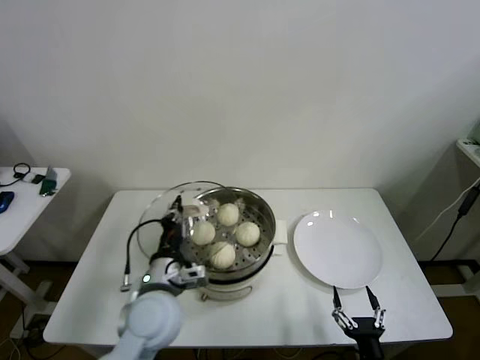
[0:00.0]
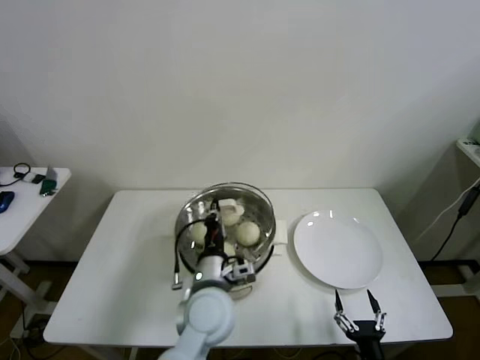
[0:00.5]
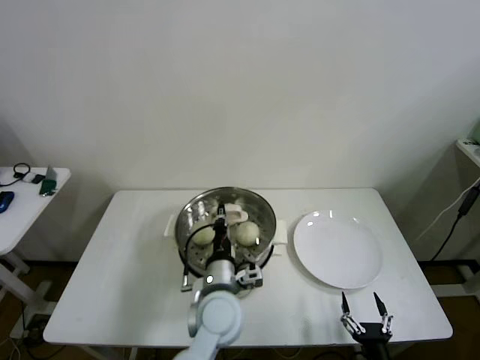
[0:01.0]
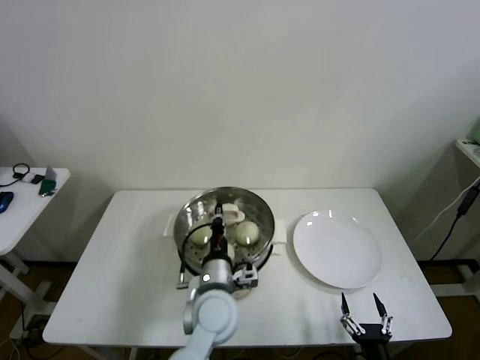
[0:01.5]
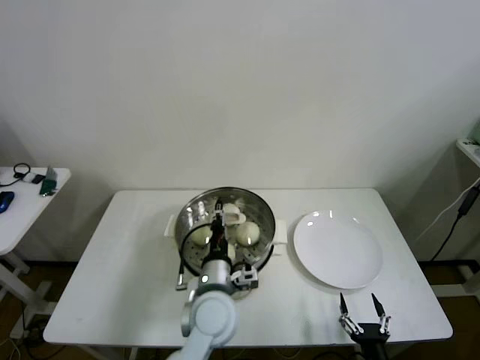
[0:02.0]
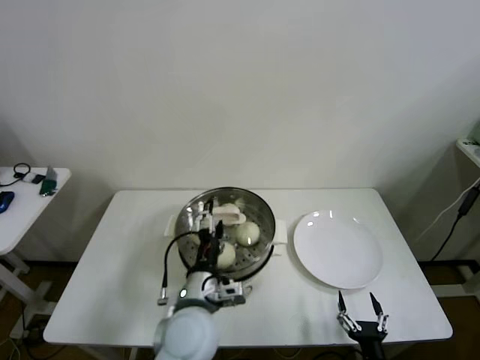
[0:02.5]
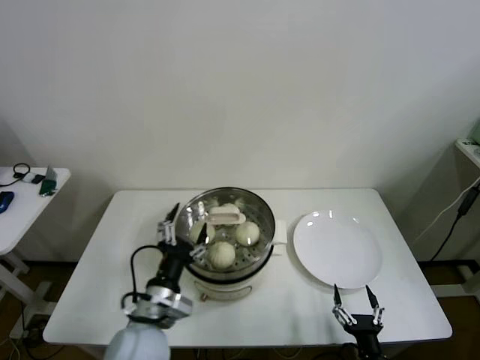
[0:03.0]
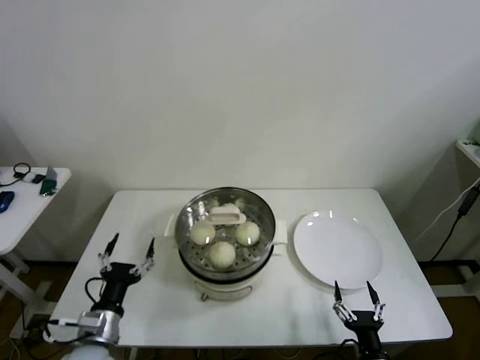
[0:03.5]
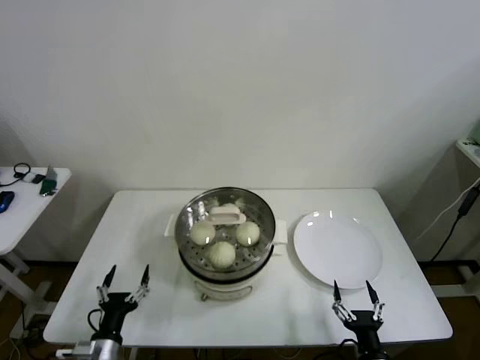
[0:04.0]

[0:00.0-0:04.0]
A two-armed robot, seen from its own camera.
0.0 to 2.0 s: The left gripper heads to the right, covering roughly 10 cm.
2.0 to 4.0 s: The left gripper heads to the left, downward and backward, covering about 30 cm, and opens up.

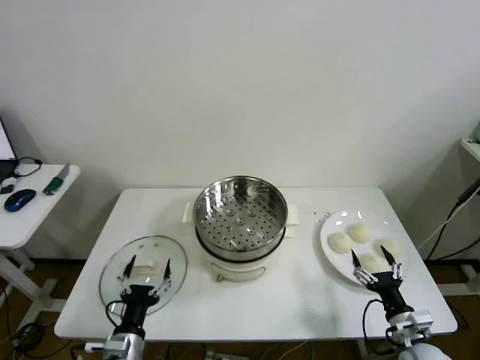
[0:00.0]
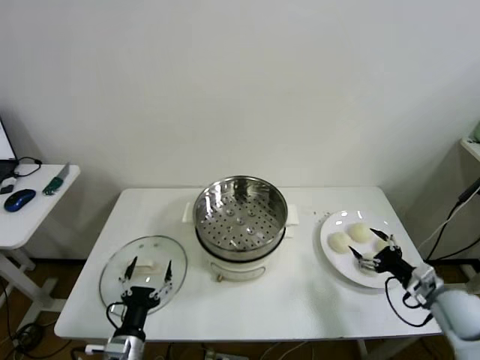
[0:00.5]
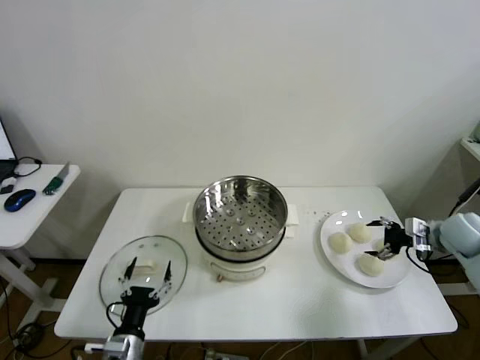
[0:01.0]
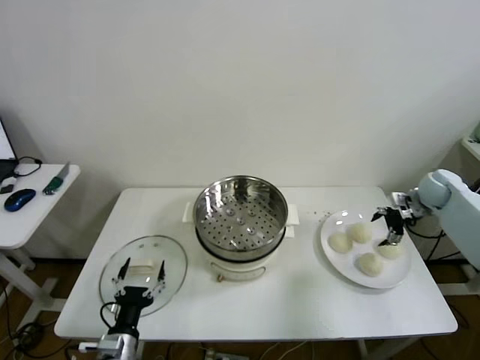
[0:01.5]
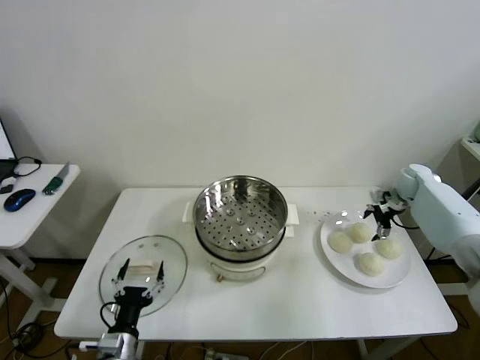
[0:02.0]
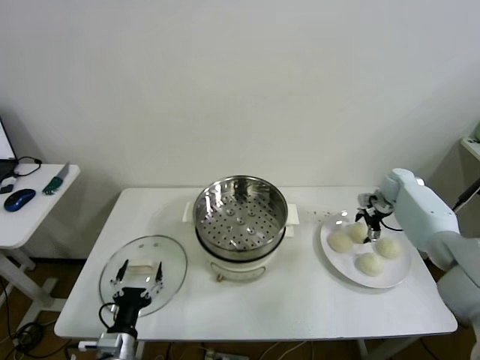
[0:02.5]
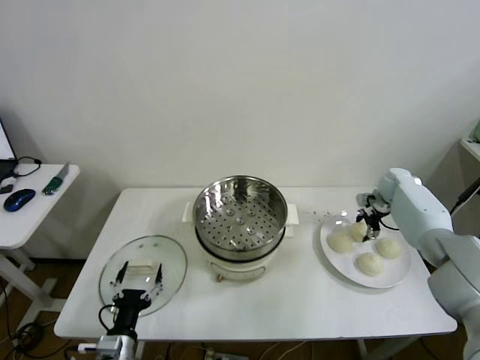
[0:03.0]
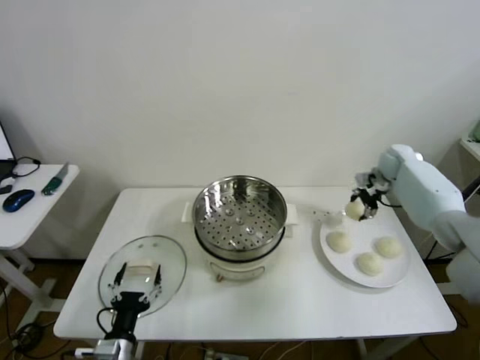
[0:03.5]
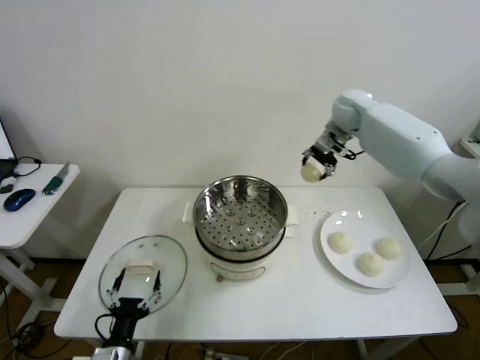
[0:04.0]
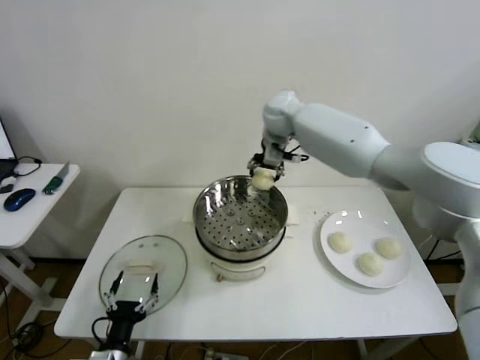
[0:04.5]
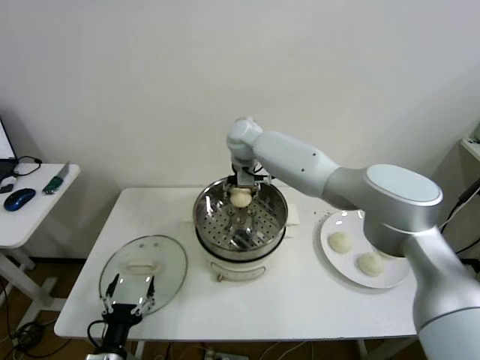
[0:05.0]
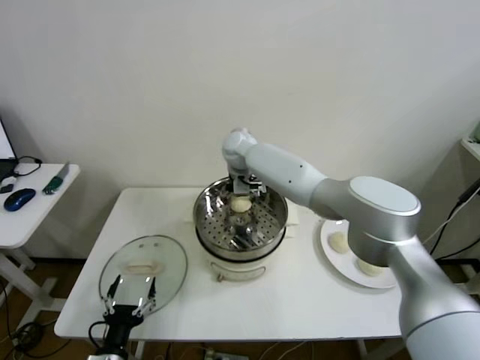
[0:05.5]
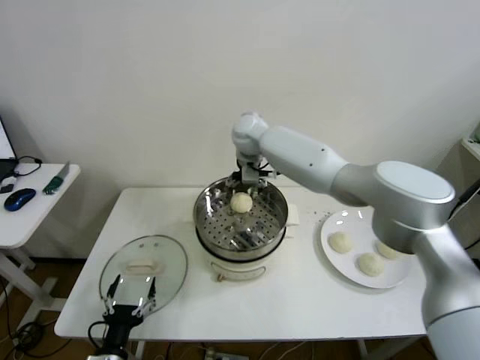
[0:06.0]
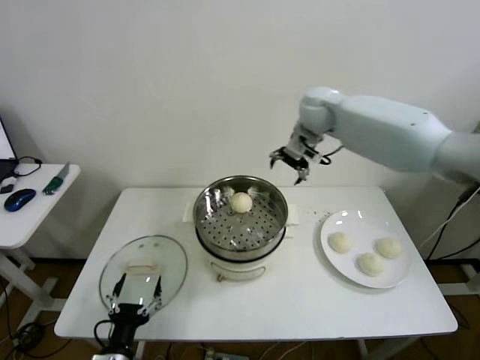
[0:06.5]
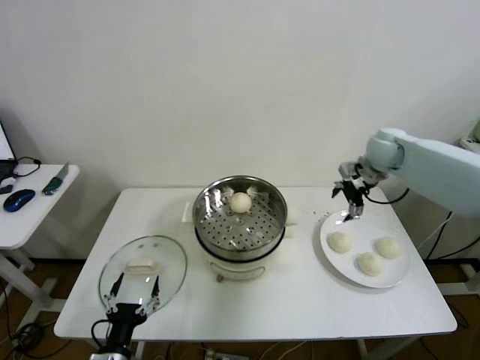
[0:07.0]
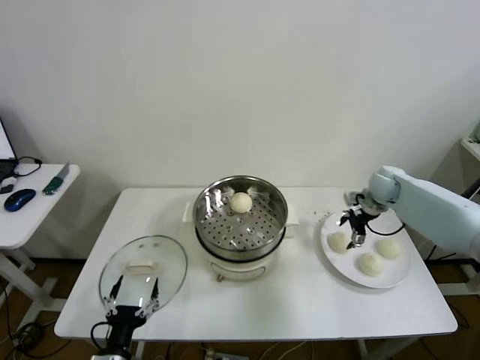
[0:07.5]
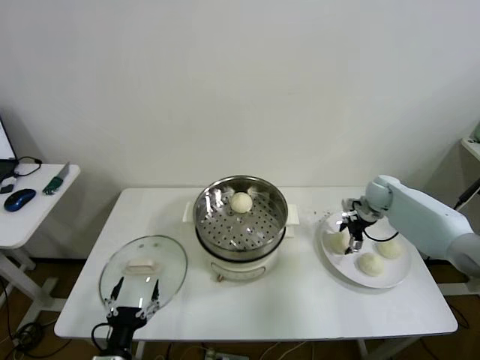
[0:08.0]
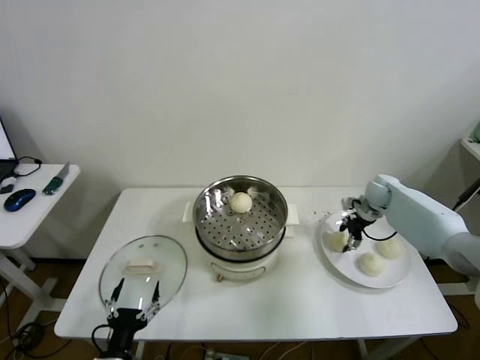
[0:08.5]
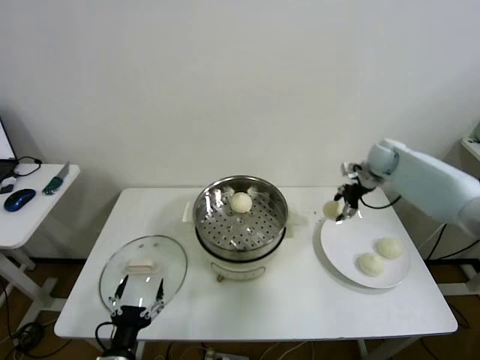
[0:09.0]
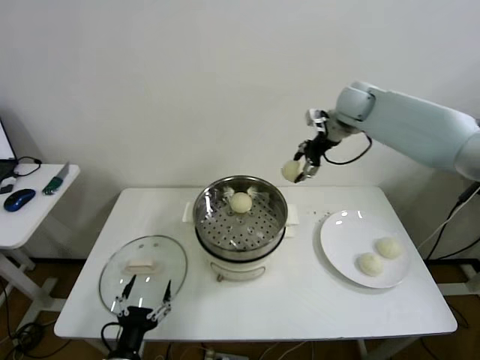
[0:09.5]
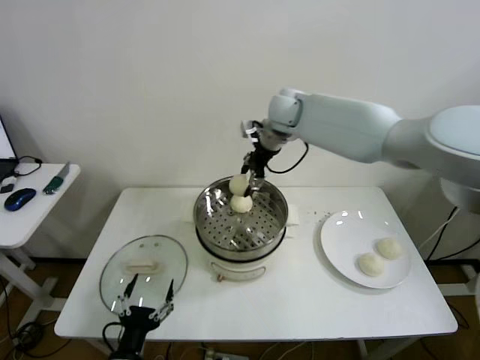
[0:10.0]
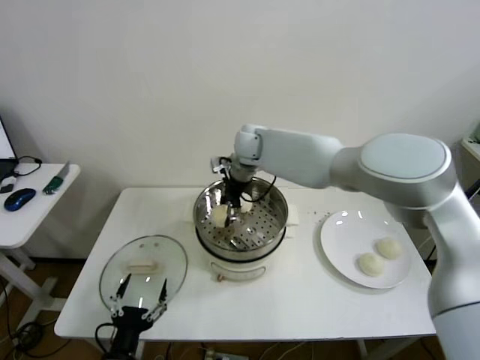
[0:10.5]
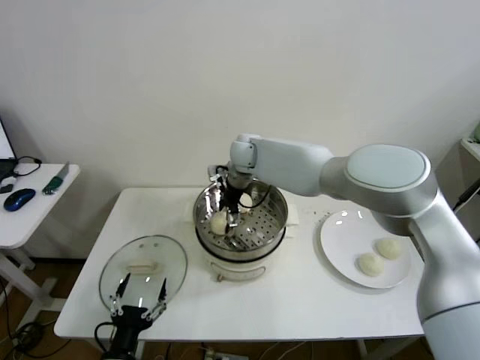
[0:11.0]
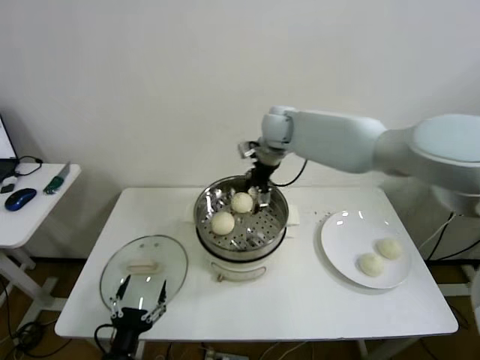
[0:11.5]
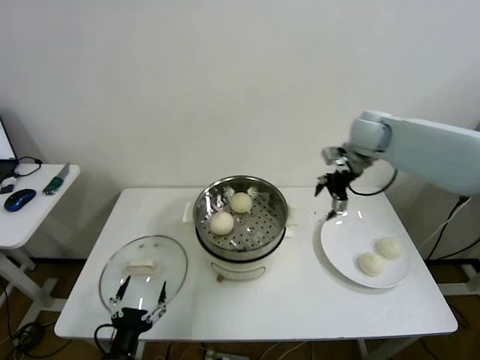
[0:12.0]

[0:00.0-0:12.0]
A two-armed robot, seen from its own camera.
Step, 0.0 to 3.0 s: Grasp the baozi in the plate with right gripper.
Step, 3.5 to 5.0 s: Place the baozi on the steamer with right gripper.
Step, 5.5 to 8.0 s: Grasp the baozi in the plate with right gripper.
Step, 8.5 to 11.0 s: Place the baozi on the steamer with right gripper.
2.0 to 4.0 s: The right gripper is displaced to the left and upward by some 30 cm, and closes its fingers.
4.0 to 6.0 s: The right gripper goes roughly 25 cm to the left, and opens.
6.0 to 8.0 s: The right gripper is displaced to the right and downward by about 40 cm.
8.0 to 10.0 s: The right gripper moves to the left and upward, some 35 cm, and closes up.
10.0 to 12.0 s: The right gripper shifts approximately 15 cm to the right, and opens.

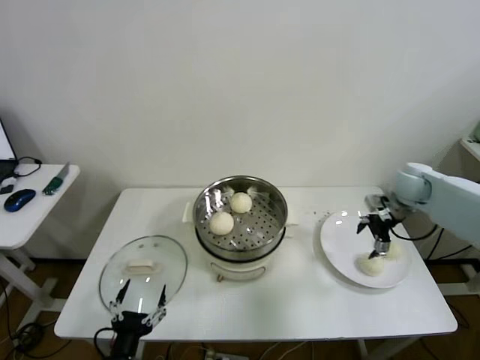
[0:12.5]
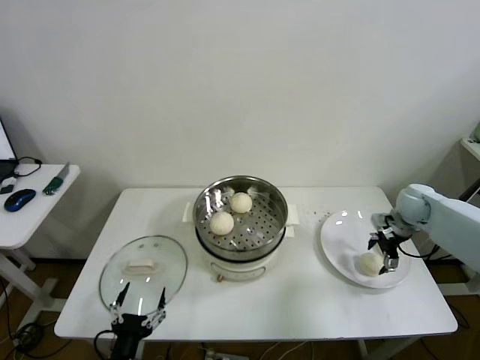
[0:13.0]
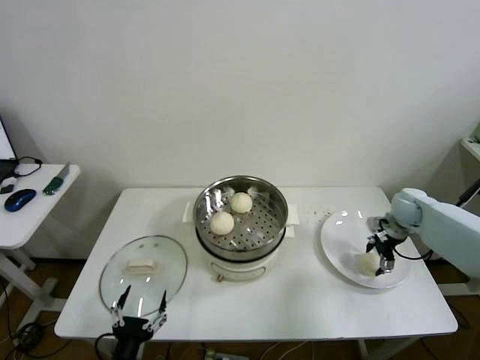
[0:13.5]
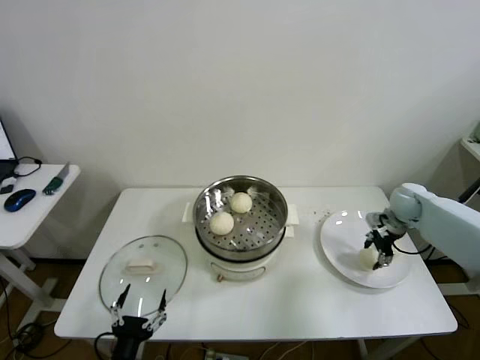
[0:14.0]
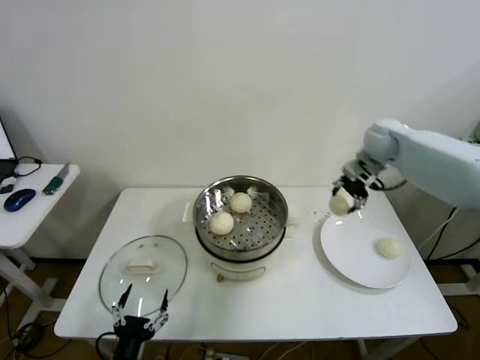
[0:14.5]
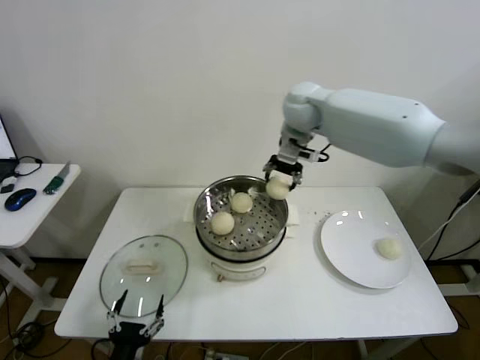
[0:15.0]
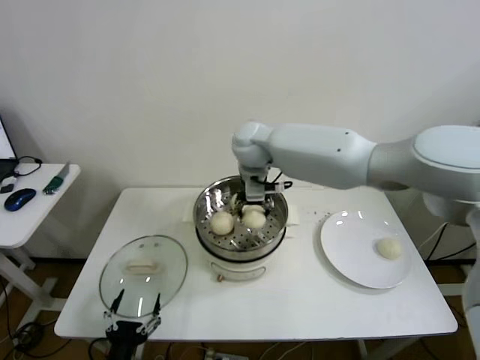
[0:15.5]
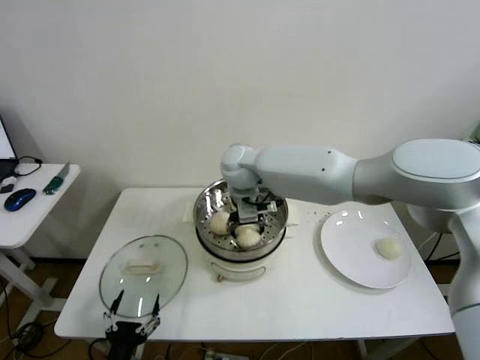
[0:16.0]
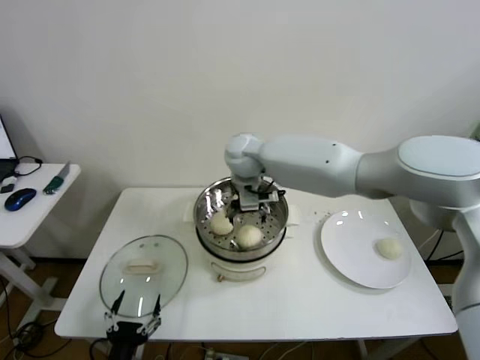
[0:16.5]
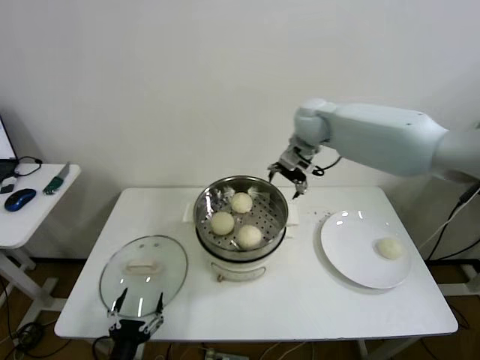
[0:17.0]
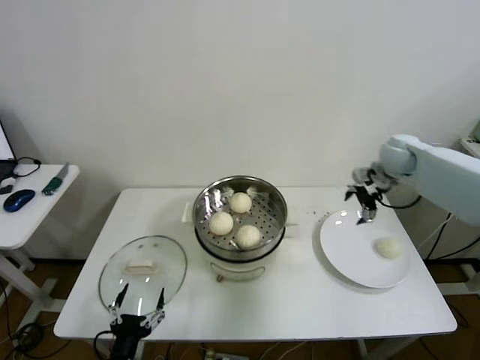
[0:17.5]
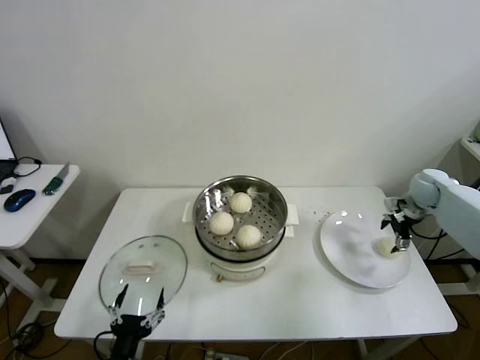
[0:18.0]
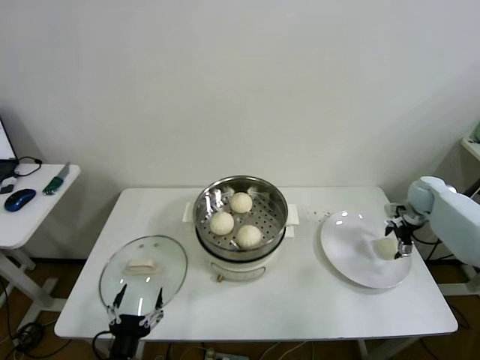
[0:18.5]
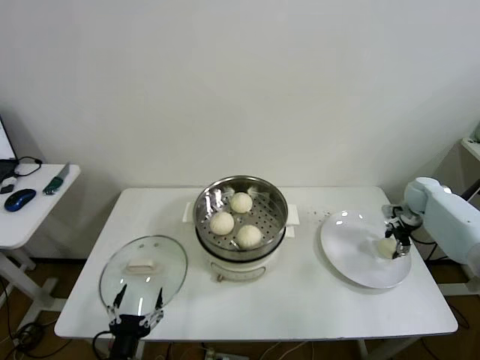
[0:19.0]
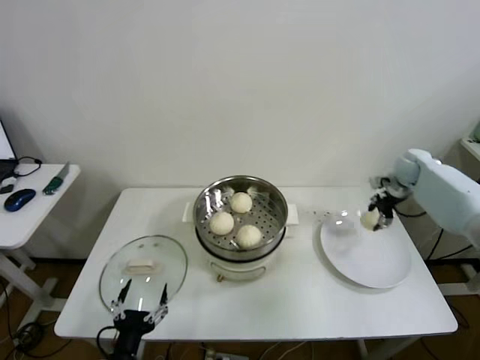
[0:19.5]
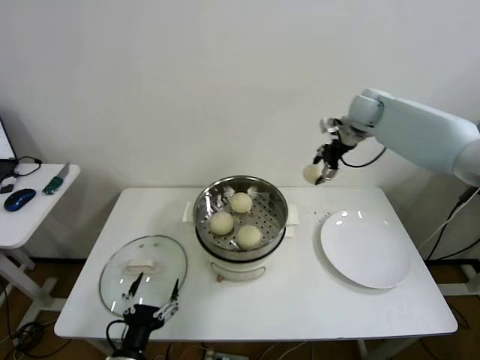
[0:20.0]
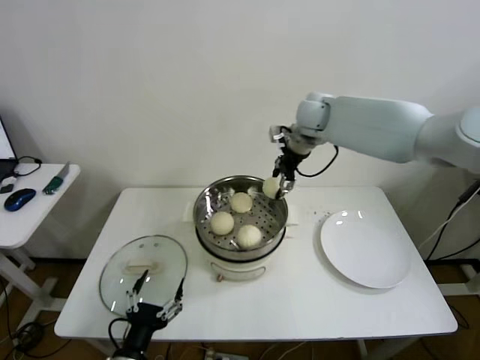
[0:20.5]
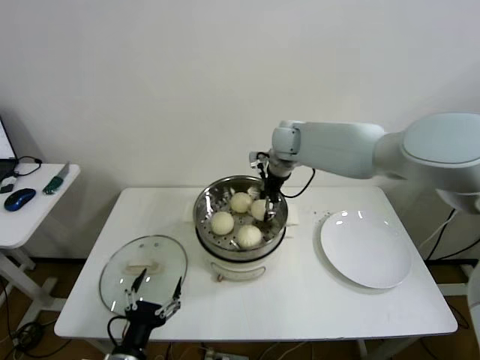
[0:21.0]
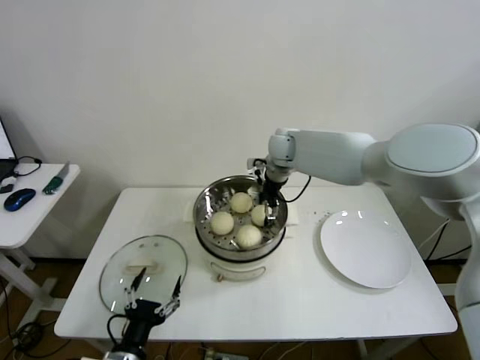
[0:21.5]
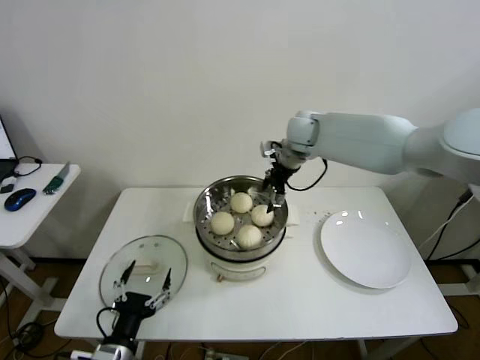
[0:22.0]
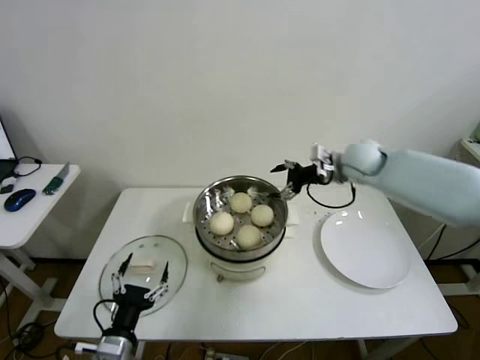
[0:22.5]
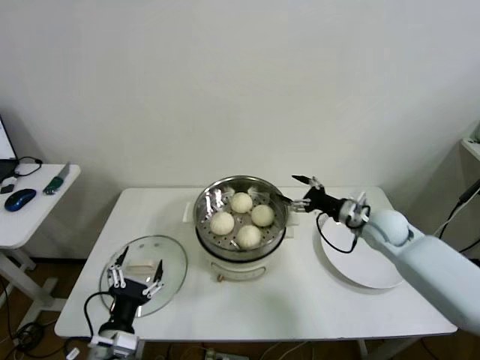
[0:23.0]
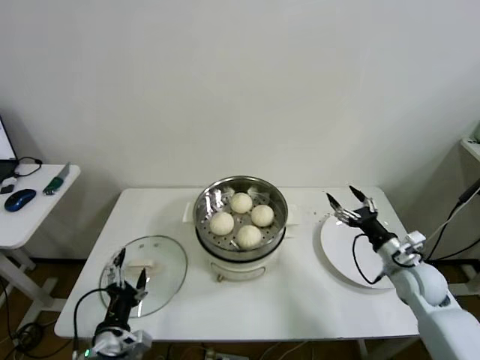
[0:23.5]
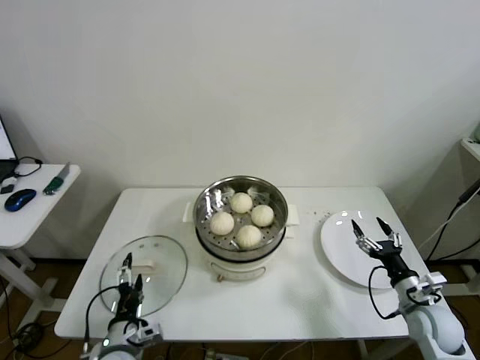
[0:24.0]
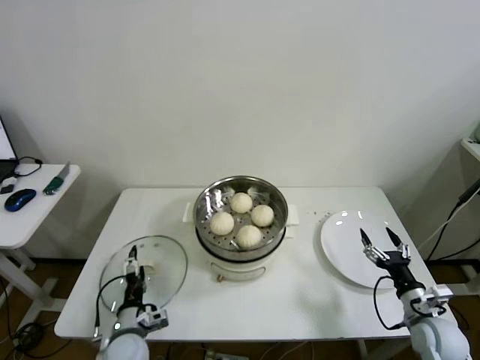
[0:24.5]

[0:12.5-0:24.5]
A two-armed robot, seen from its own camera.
Step, 14.0 to 16.0 s: Place the baozi on the steamer with right gripper.
Step, 16.5 to 18.5 s: Grasp the baozi in the plate with right gripper.
Step, 19.0 to 21.0 s: Place the baozi on the steamer with right gripper.
12.5 to 14.5 s: The right gripper goes some 10 cm upward, forward and to the left, and closes up.
14.5 to 16.5 s: The right gripper heads to the left, covering roughly 35 cm, and opens.
16.5 to 18.5 s: The right gripper goes approximately 50 cm to the right.
18.5 to 20.5 s: The right gripper is displaced to the left and upward by some 40 cm, and closes its fingers.
20.5 to 22.5 s: The right gripper shifts roughly 15 cm to the right, downward and backward, and opens up.
22.5 to 24.5 s: The right gripper heads backward, downward and to the right, covering about 40 cm. Meanwhile the left gripper travels forward and downward by approximately 10 cm.
